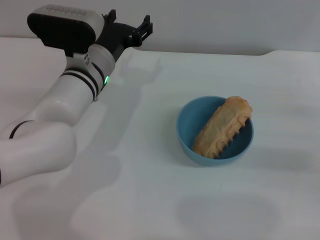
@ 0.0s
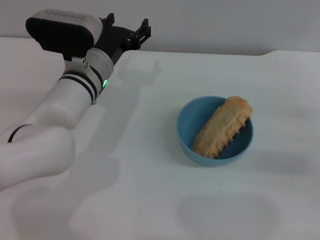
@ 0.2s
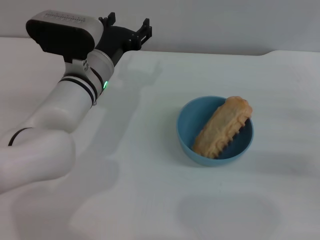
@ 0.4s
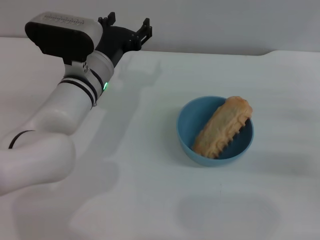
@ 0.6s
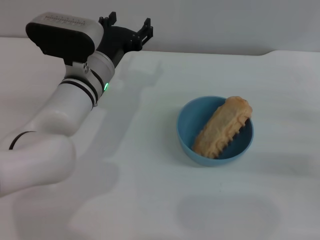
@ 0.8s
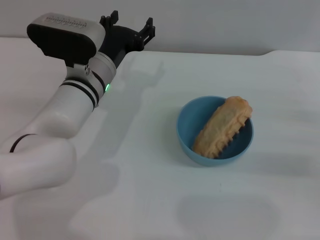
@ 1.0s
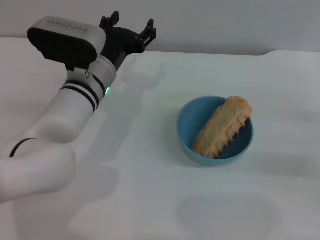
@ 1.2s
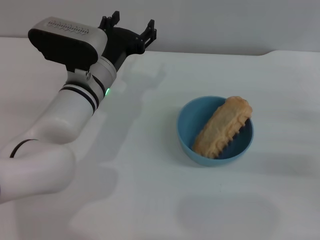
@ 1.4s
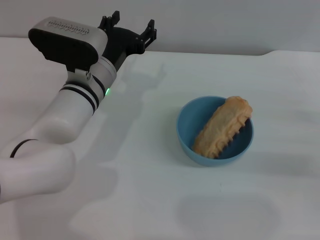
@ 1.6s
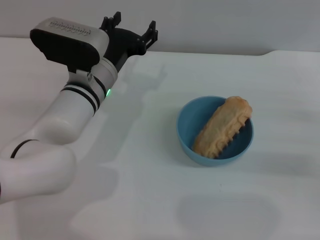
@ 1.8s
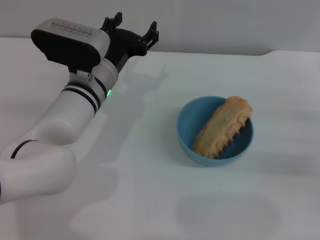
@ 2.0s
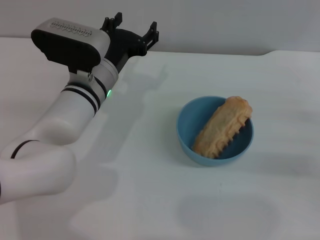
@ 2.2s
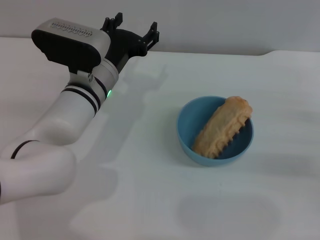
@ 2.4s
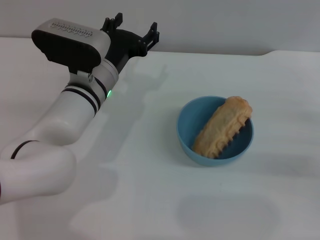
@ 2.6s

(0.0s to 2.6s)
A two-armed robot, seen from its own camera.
Task of the whole recording: put the bread into the blue bowl and pour it out repeatedly.
0.0s - 1.2s: The grippers make only small movements.
1.2s - 2.6s: Both grippers stay put.
